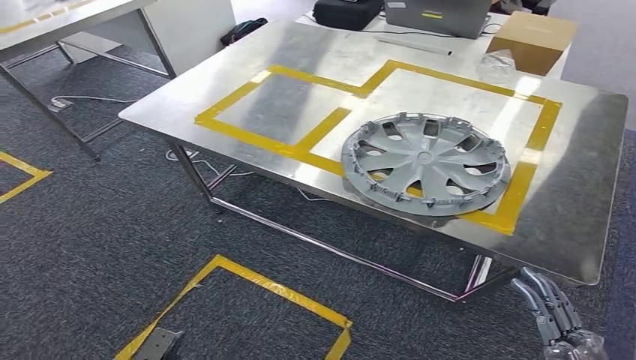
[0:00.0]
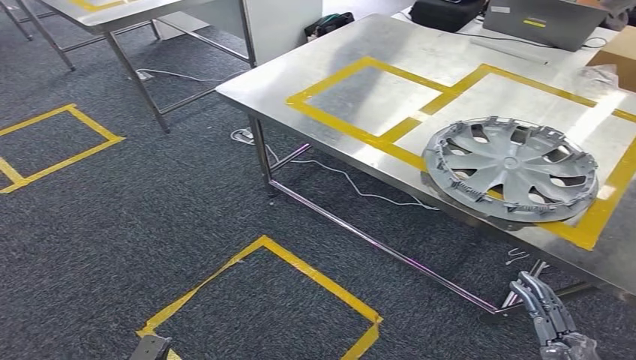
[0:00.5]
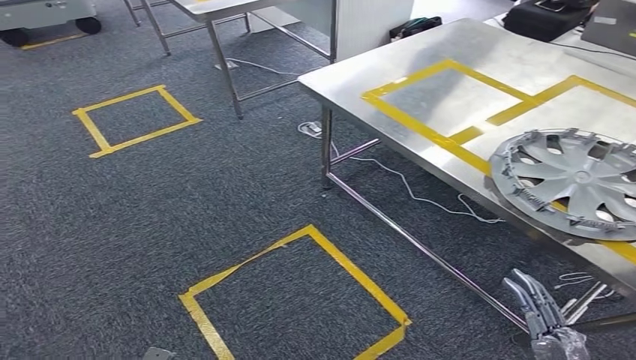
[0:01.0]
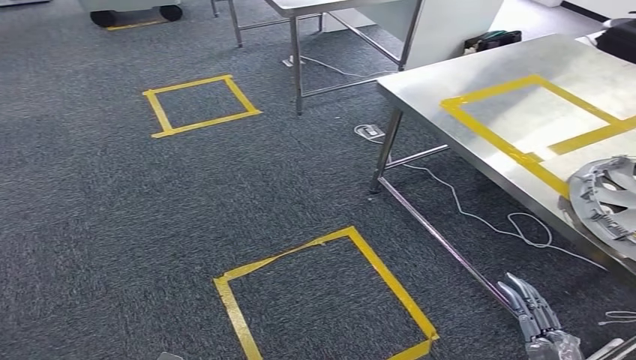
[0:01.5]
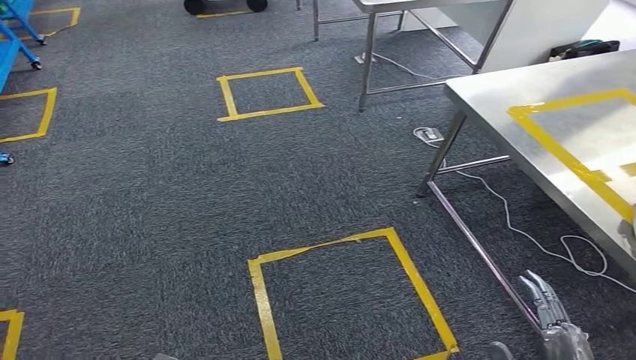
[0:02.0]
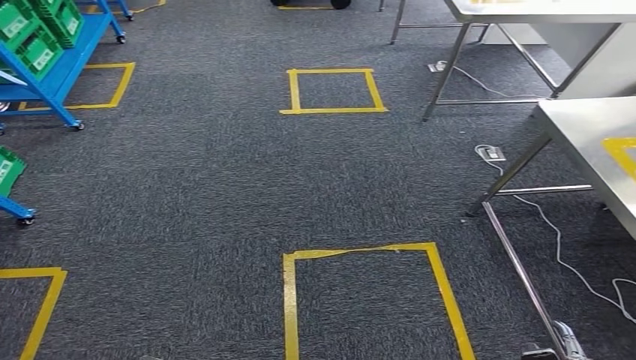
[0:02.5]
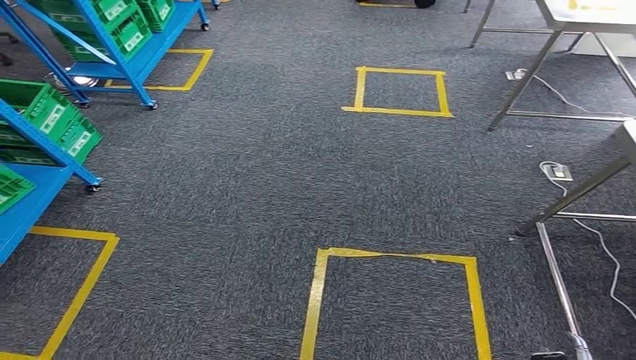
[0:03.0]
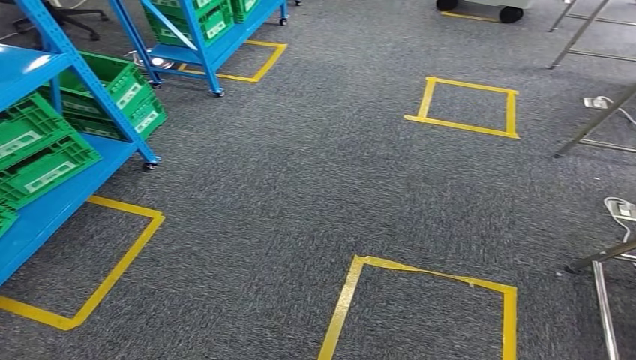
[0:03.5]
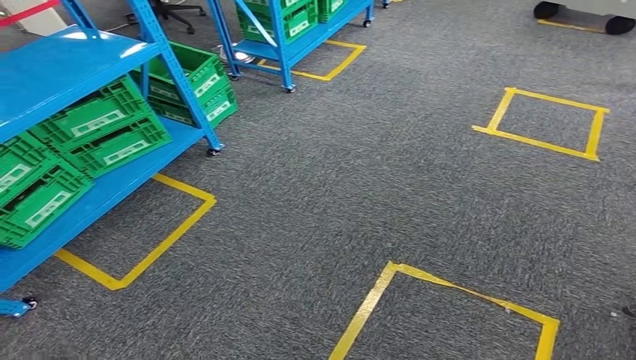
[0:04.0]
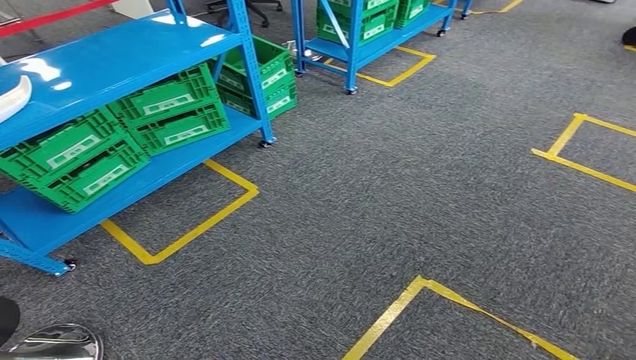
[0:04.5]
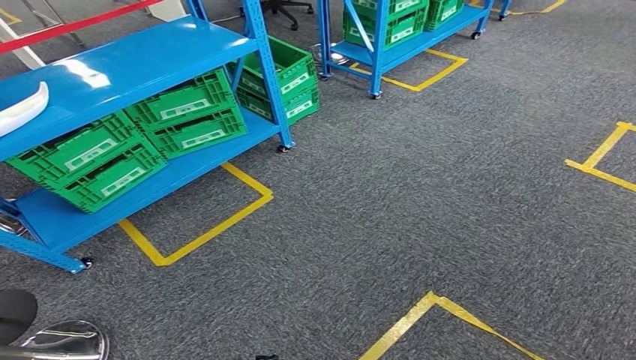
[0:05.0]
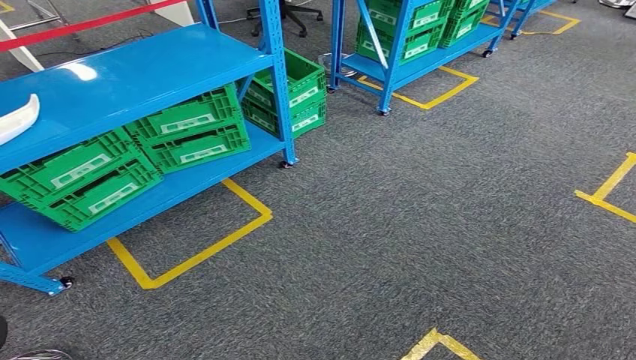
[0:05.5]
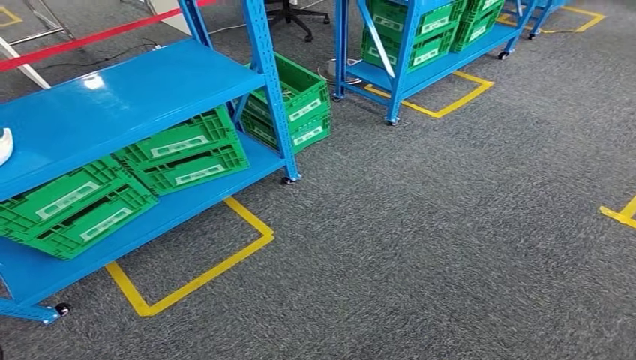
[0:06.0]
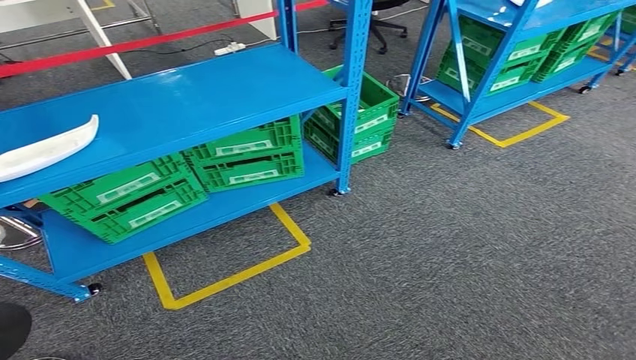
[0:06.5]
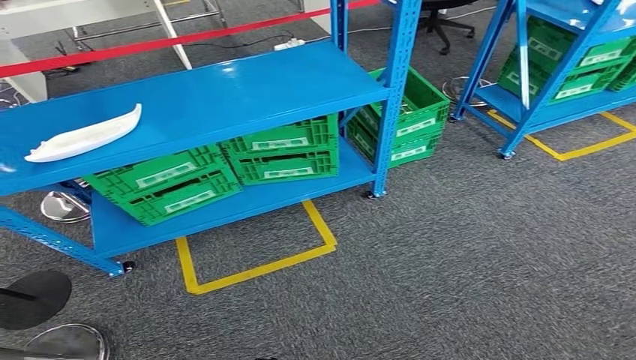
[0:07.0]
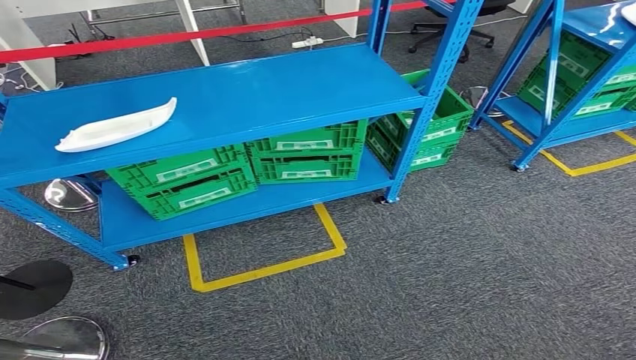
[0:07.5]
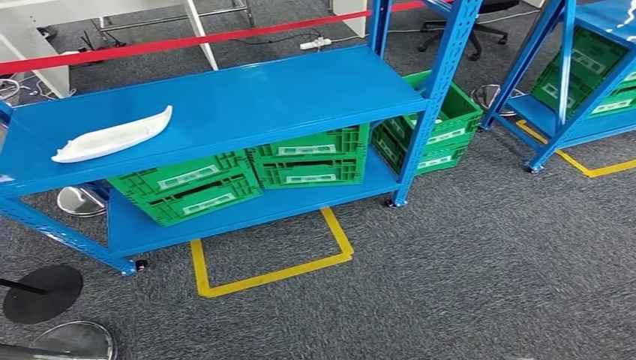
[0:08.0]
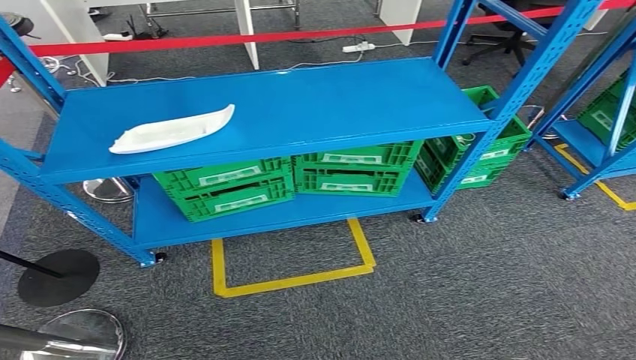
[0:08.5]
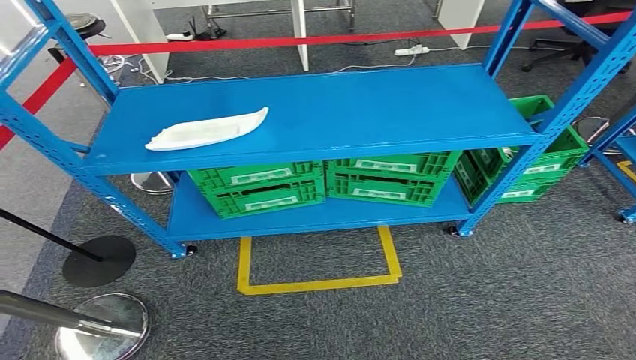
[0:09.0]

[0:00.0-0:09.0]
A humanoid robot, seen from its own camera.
Step, 0:00.0 to 0:09.0: Return to the initial position at the workbench.

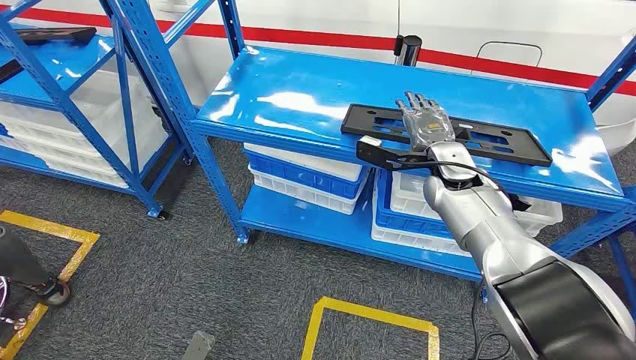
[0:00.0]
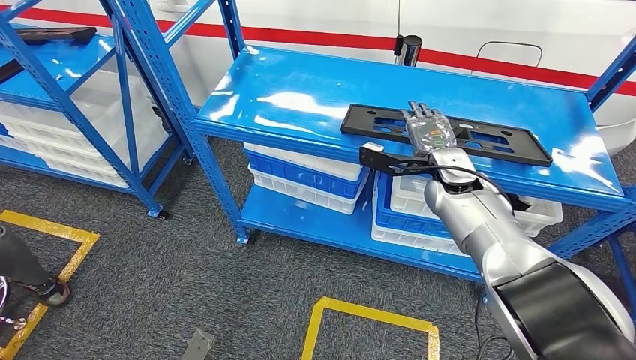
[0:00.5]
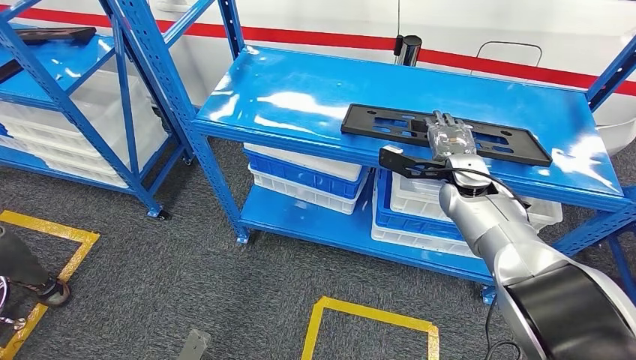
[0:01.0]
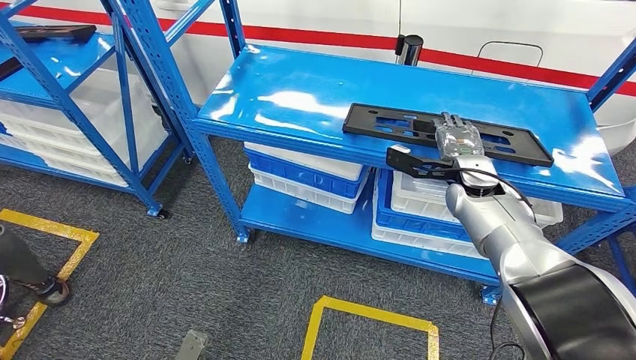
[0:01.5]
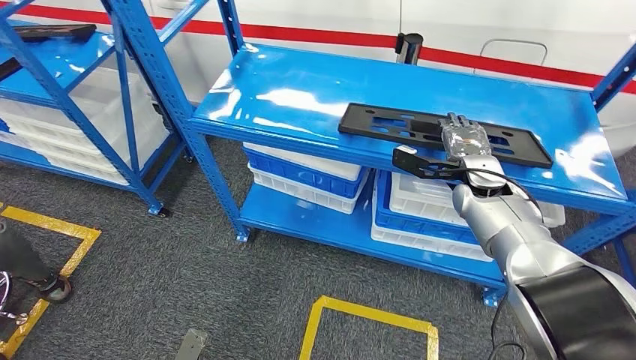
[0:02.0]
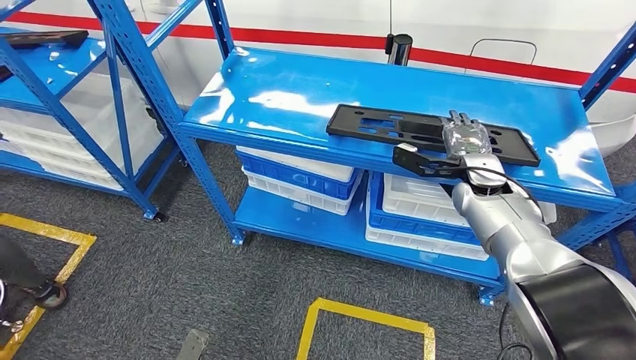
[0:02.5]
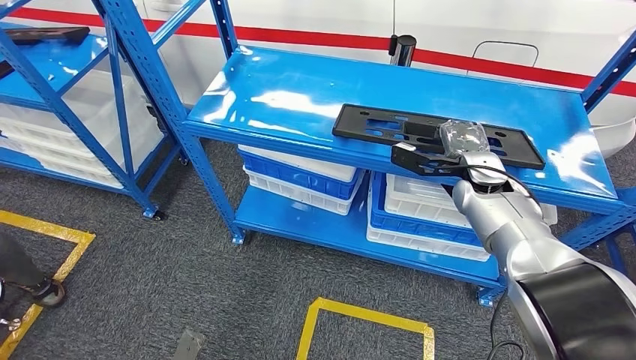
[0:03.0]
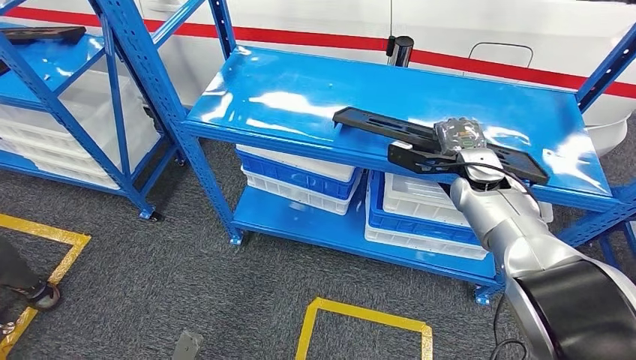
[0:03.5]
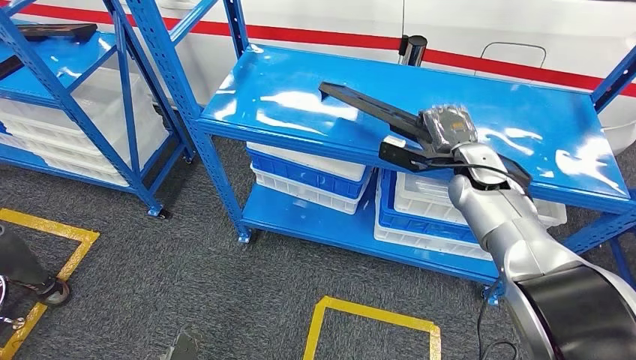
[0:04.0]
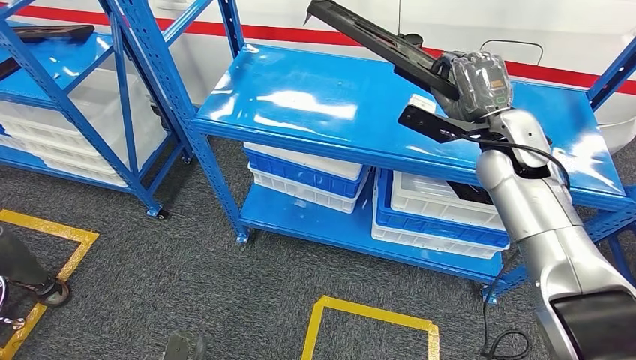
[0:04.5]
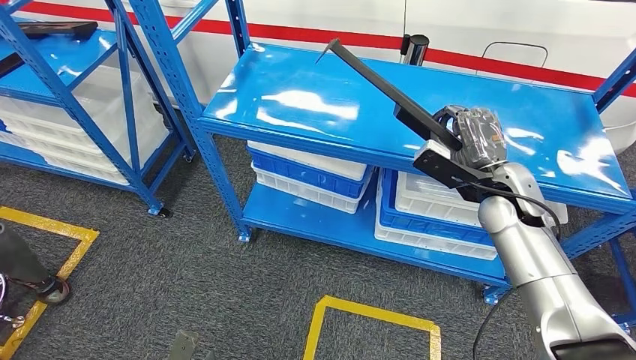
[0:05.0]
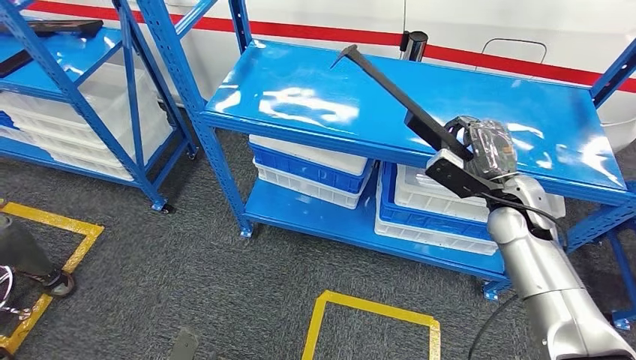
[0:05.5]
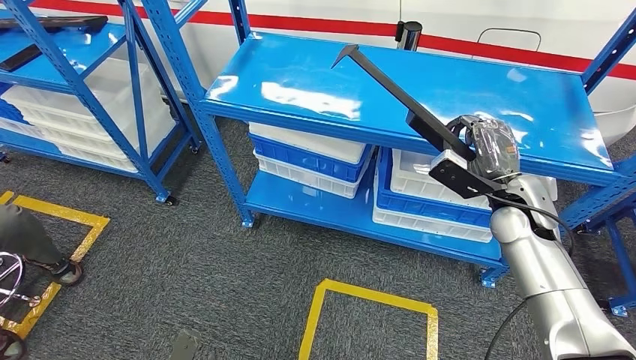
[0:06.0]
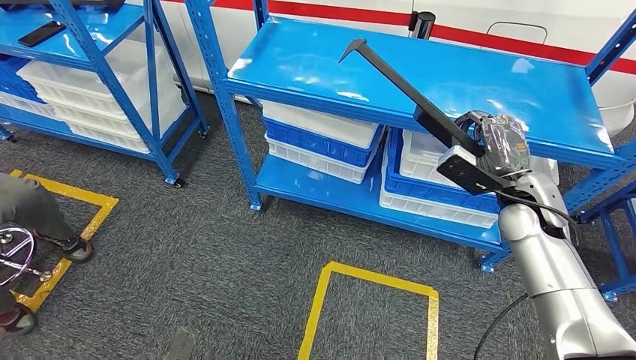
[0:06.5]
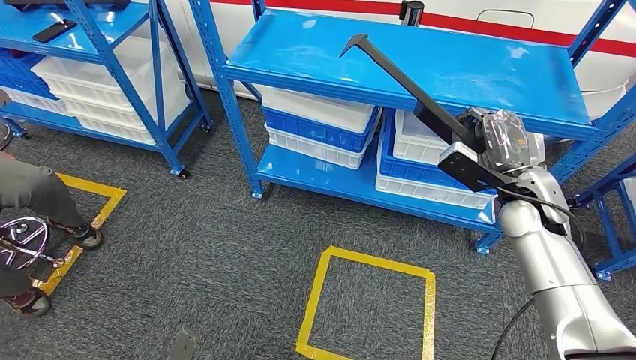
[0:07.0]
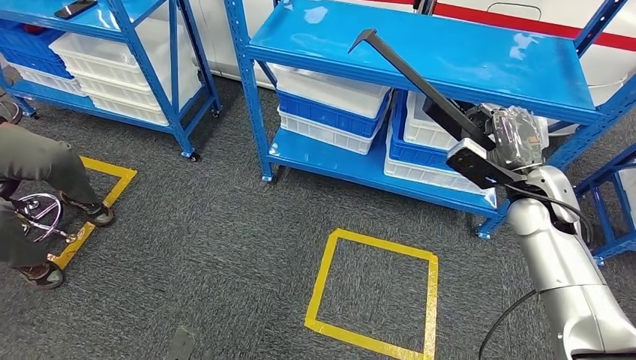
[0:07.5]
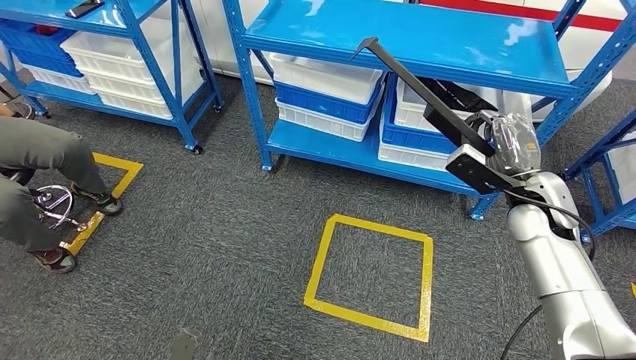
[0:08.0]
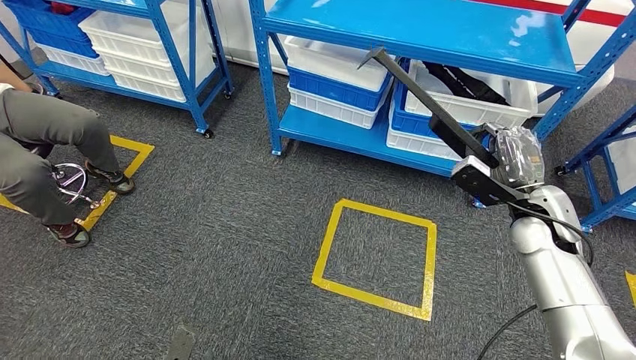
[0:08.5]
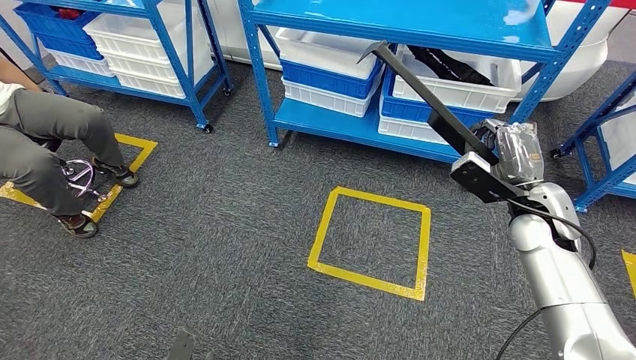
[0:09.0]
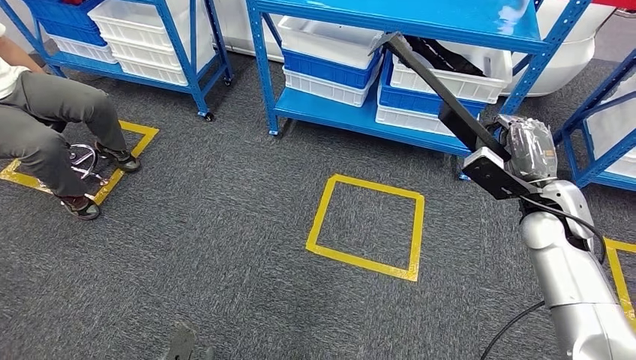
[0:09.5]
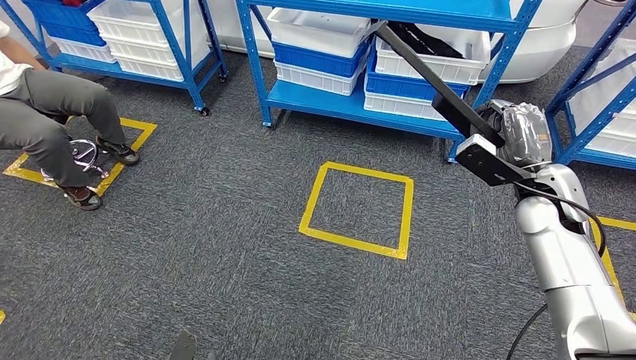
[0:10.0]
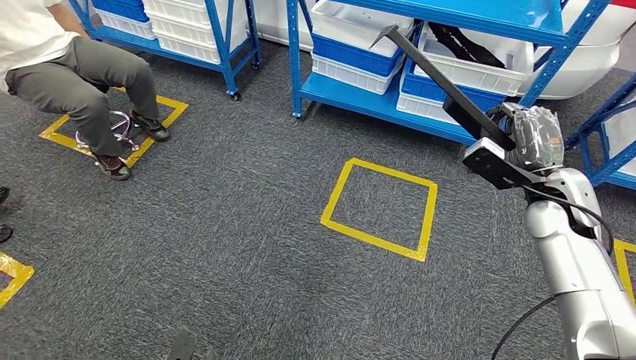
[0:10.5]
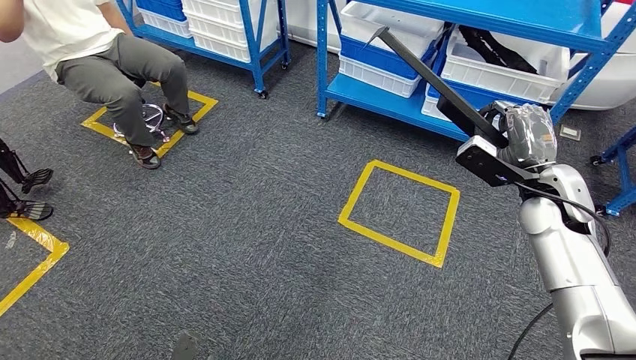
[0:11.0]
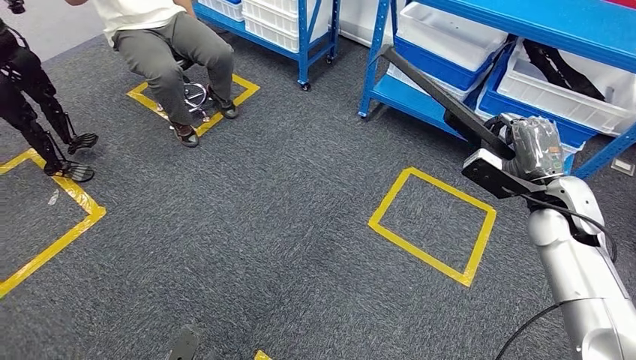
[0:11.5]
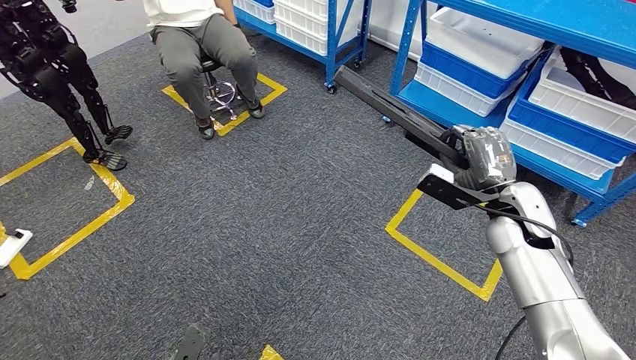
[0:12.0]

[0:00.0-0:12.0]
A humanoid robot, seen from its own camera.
Step, 0:00.0 to 0:05.5: Pick up the large parts from the shelf.
